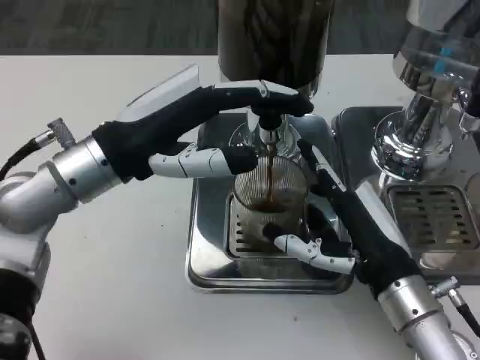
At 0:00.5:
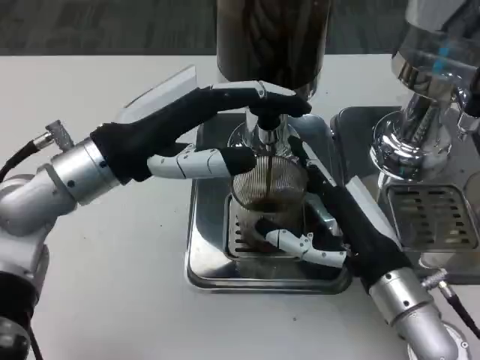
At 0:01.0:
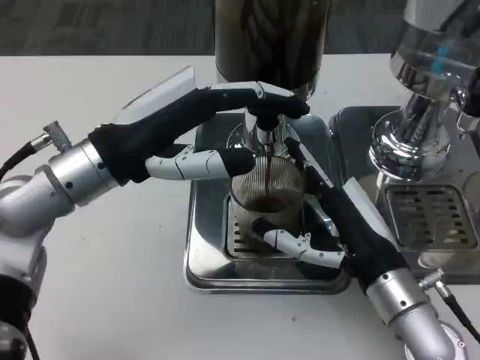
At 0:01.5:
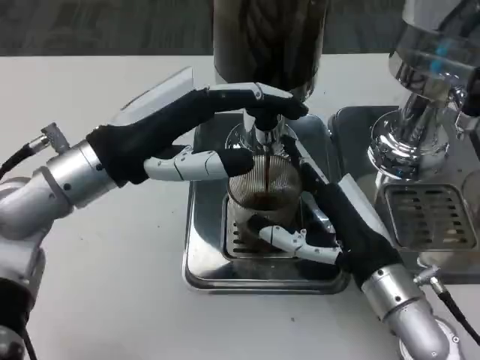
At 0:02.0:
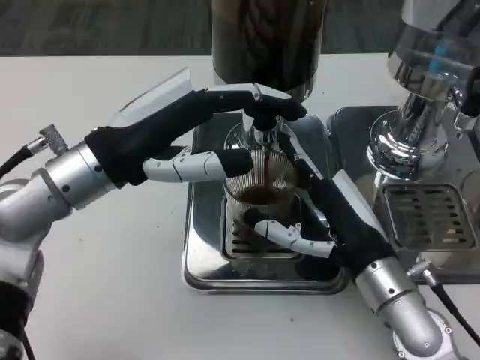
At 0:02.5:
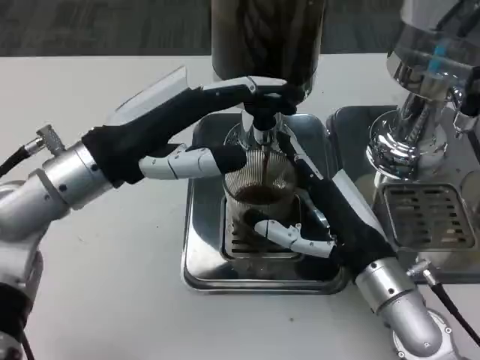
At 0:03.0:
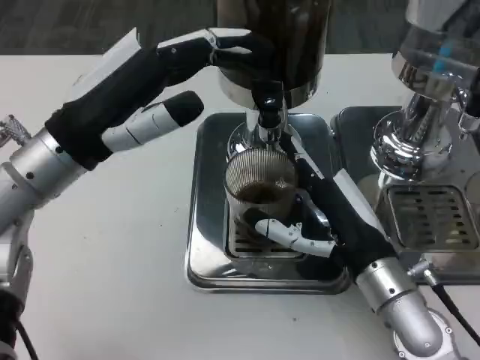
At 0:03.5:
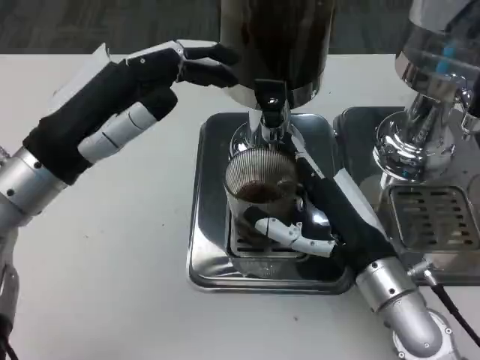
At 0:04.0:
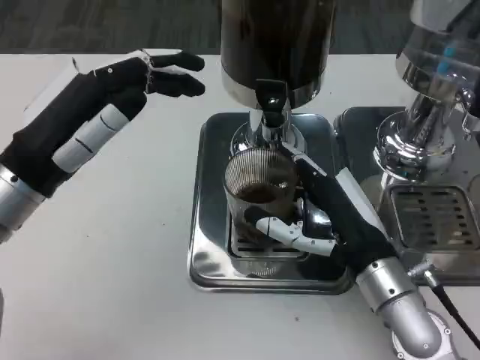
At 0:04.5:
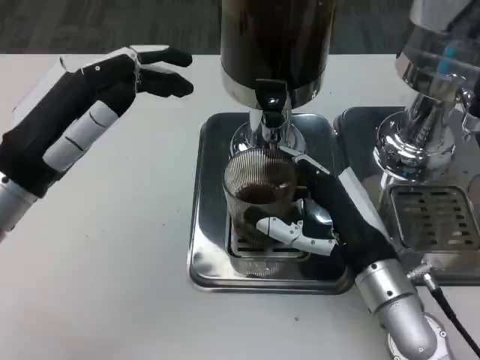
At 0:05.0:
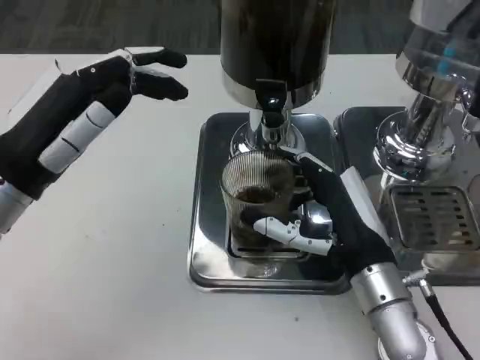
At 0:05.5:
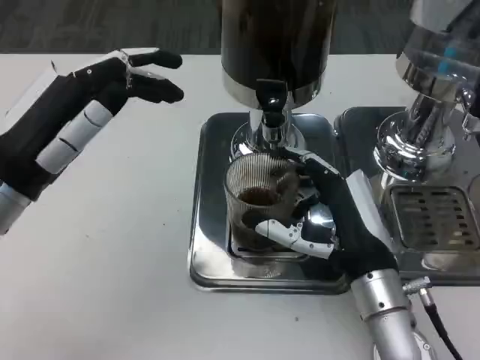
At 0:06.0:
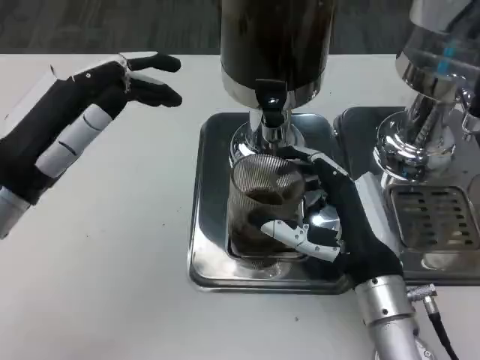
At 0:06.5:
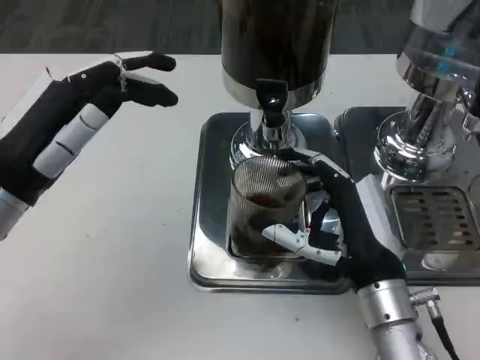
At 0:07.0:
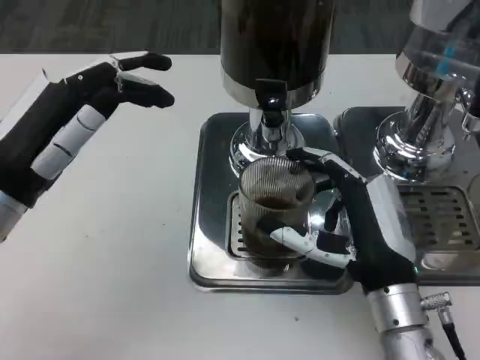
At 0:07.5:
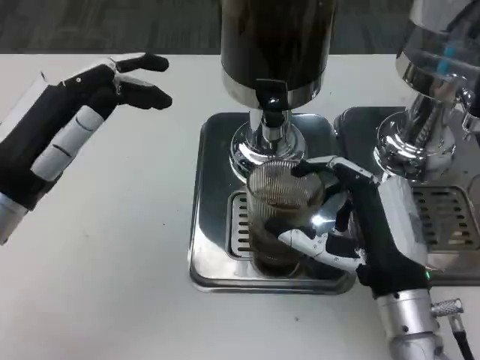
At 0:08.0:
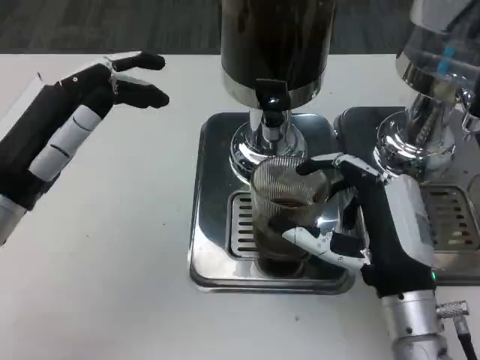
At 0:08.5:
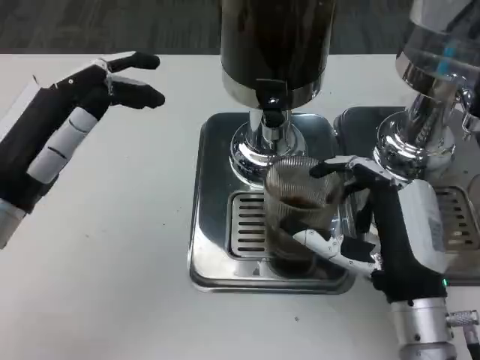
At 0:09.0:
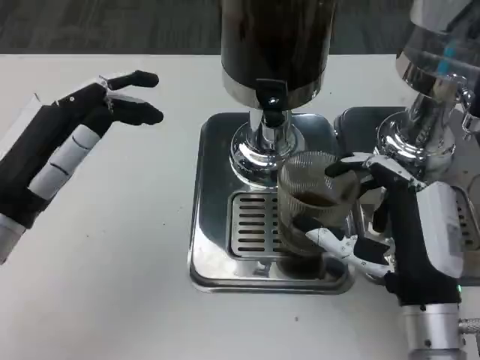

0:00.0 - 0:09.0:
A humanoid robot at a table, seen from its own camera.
Task of the whole recording: Grasp the cup under the faucet to collect the drink, then remove the cup.
0:02.0 - 0:04.5: The left hand is displaced to the left by roughly 5 cm.
0:04.5 - 0:07.0: The hands make only small movements.

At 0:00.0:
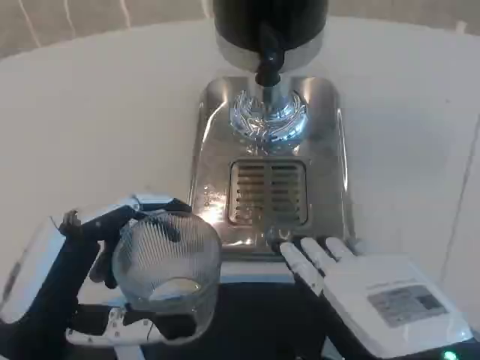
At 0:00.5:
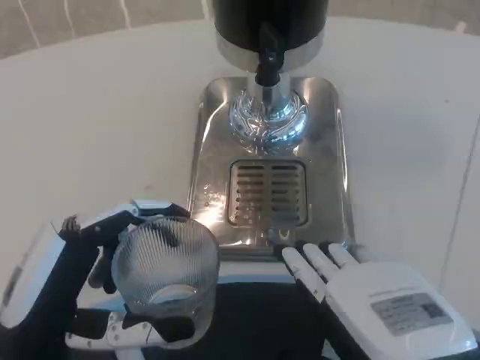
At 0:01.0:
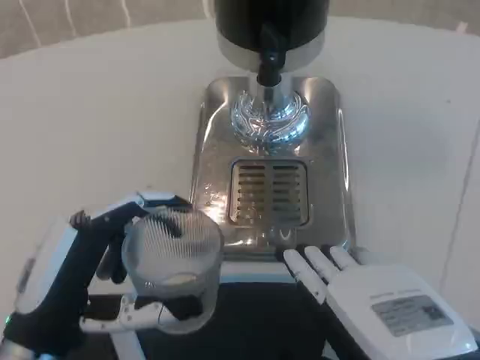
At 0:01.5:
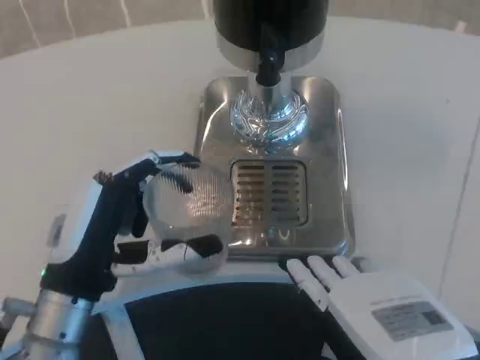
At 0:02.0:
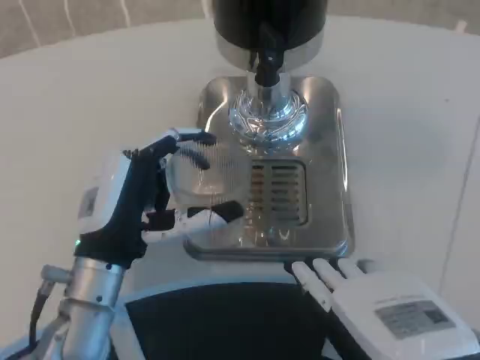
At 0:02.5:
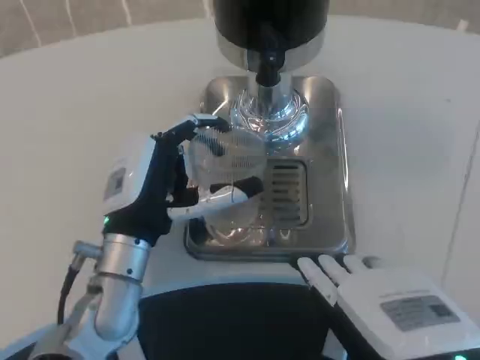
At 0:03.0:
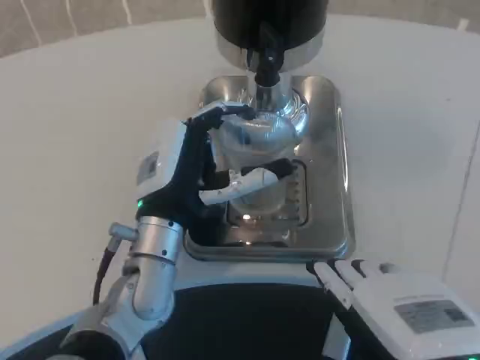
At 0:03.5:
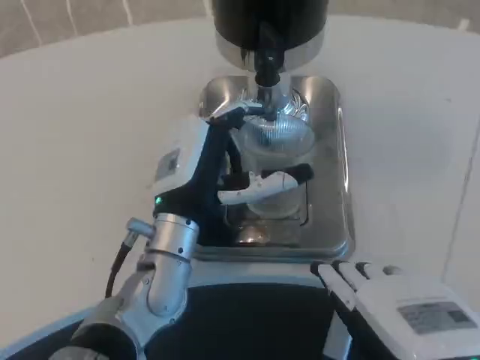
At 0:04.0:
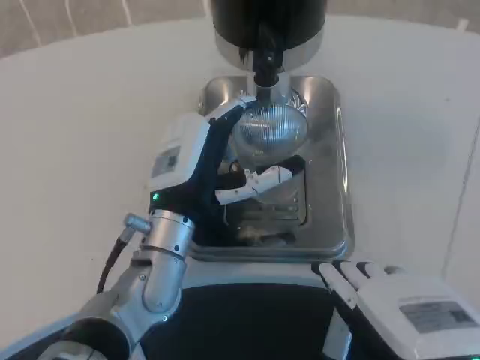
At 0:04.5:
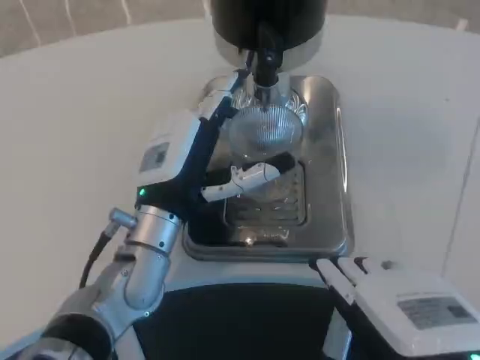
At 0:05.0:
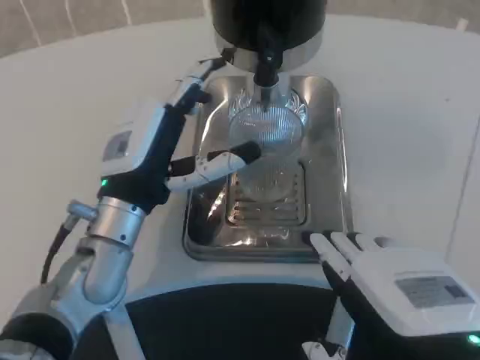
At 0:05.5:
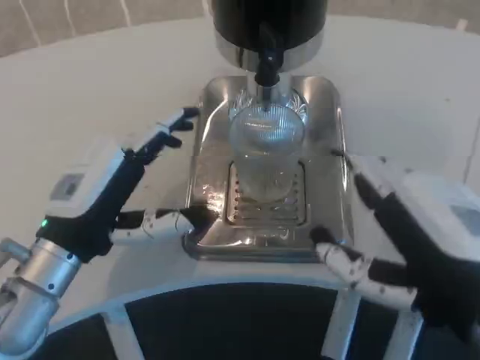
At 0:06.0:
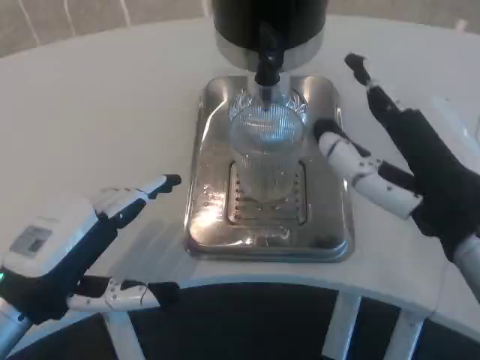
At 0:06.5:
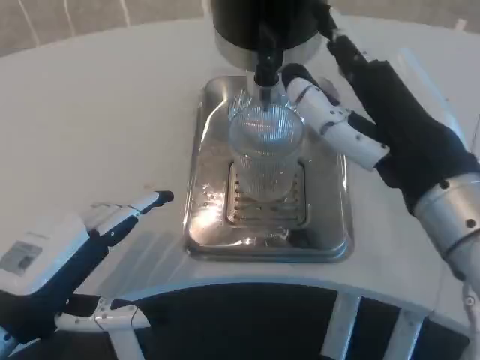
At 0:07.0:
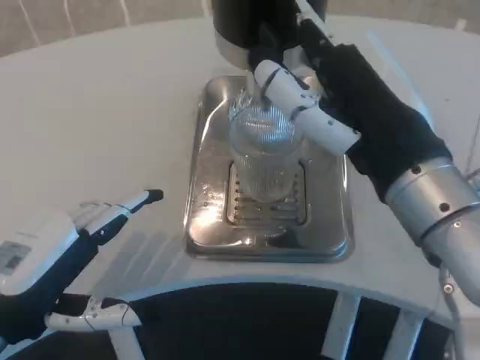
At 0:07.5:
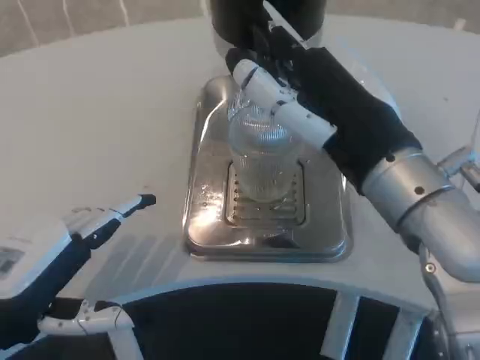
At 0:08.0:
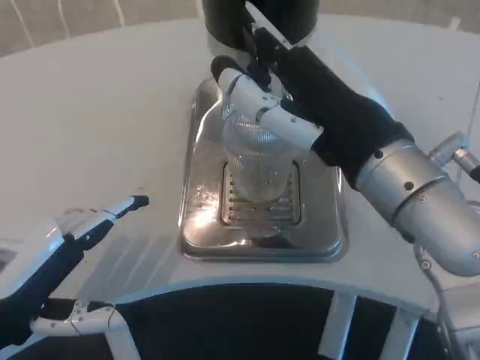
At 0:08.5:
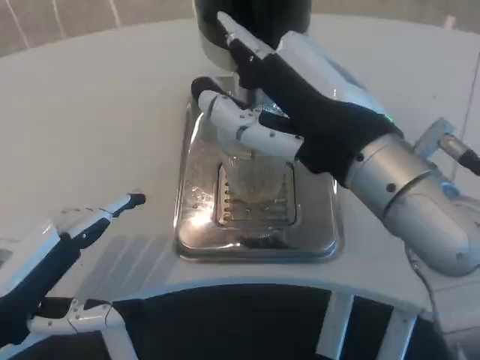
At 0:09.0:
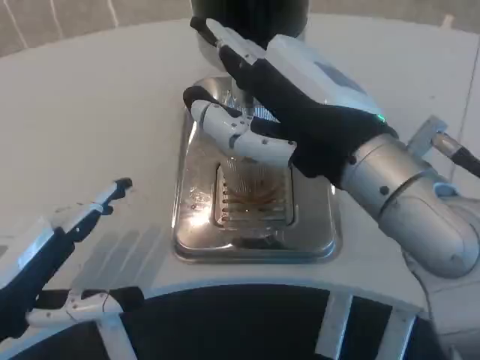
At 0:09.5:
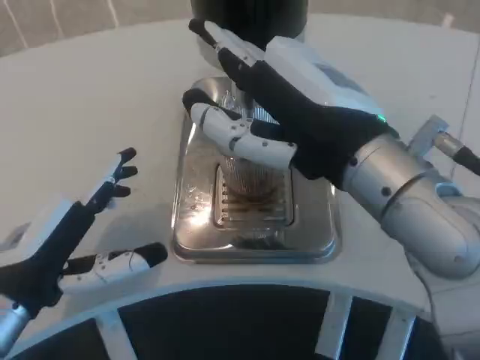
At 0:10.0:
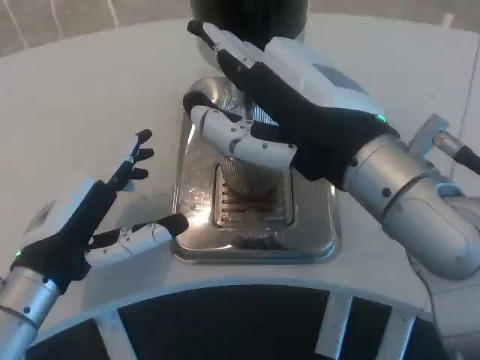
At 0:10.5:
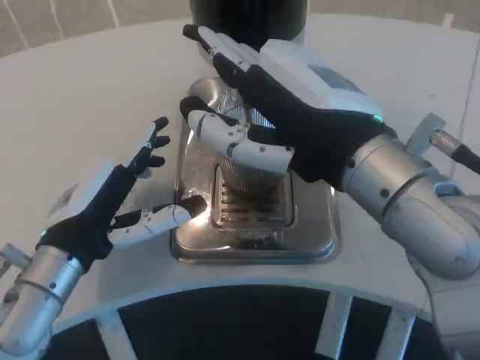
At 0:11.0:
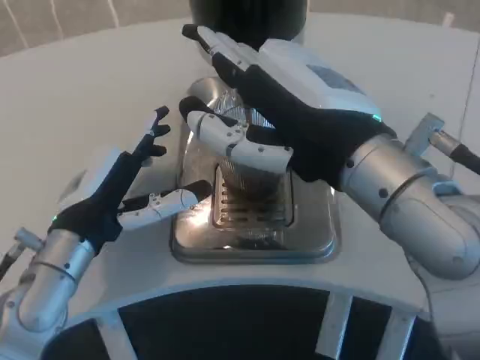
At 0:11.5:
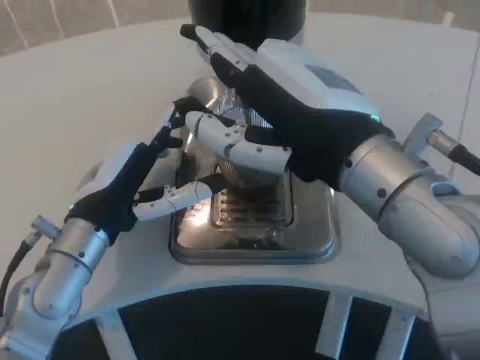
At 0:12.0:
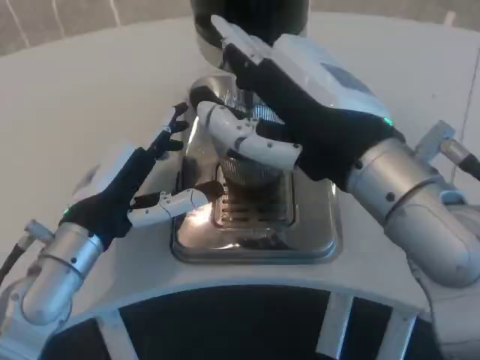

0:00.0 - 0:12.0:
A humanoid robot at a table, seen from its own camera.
Task of the whole recording: Grasp the cup under the faucet to collect the drink, then remove the cup.
0:00.0 - 0:02.0: The left hand goes approximately 10 cm forward and to the right.
0:02.0 - 0:04.0: The left hand is displaced to the right by some 5 cm.
0:04.0 - 0:06.0: The right hand shifts some 5 cm forward; the left hand goes some 20 cm to the left and backward.
0:06.0 - 0:08.0: The right hand moves approximately 5 cm.
0:08.0 - 0:10.0: The left hand moves to the right, about 5 cm.
0:10.0 - 0:12.0: The left hand goes some 5 cm forward.

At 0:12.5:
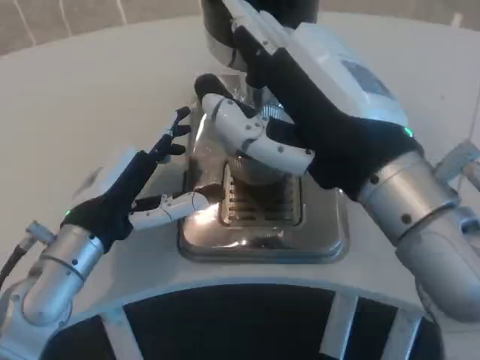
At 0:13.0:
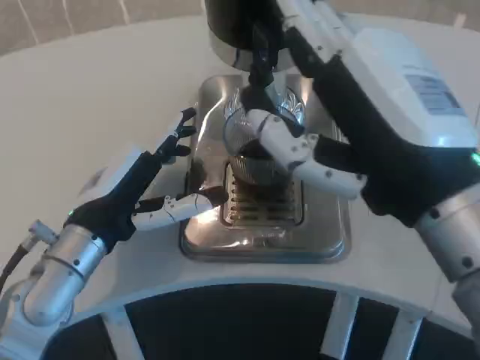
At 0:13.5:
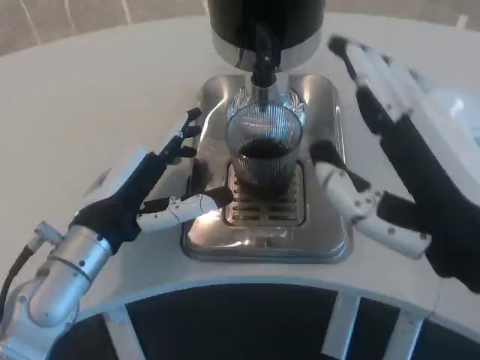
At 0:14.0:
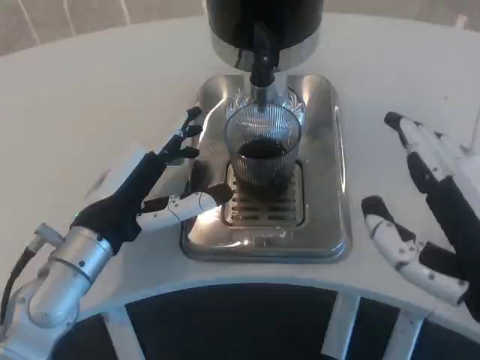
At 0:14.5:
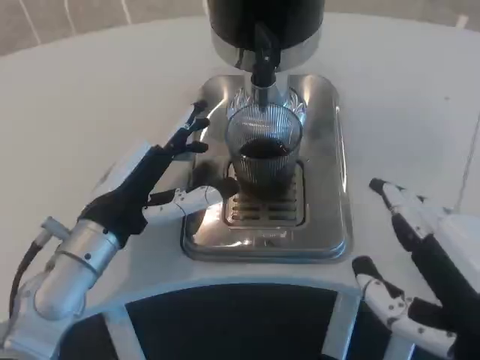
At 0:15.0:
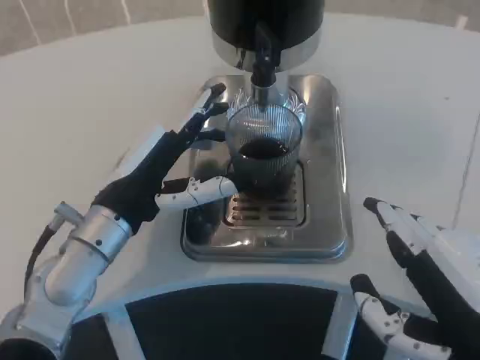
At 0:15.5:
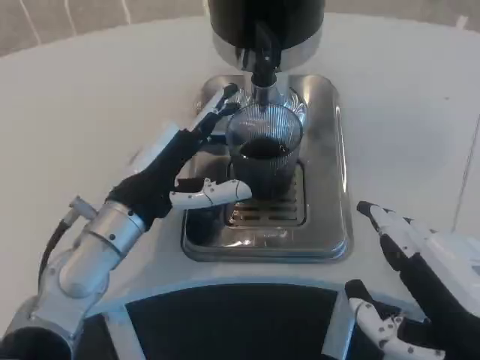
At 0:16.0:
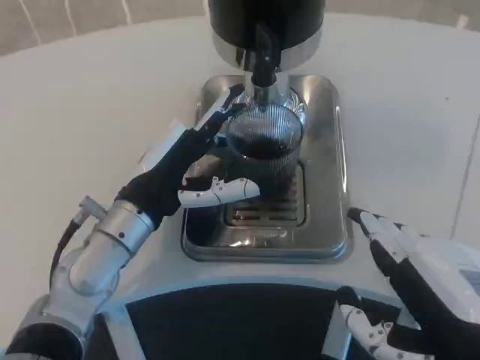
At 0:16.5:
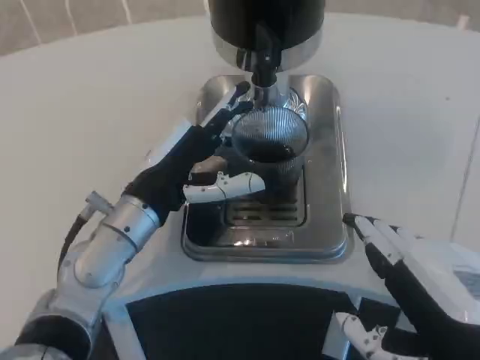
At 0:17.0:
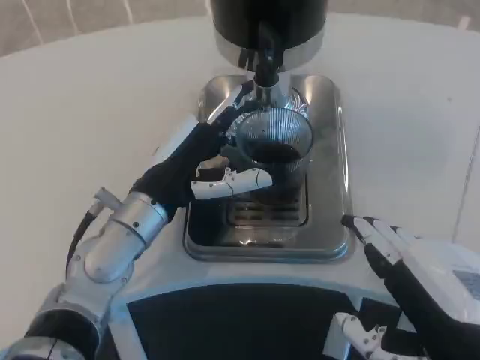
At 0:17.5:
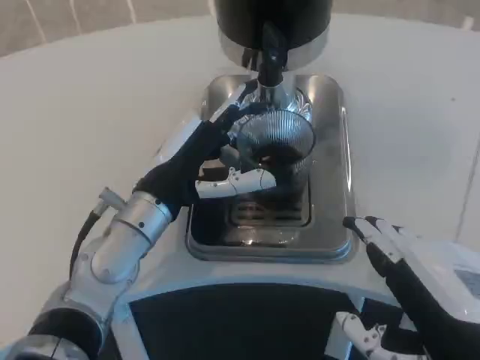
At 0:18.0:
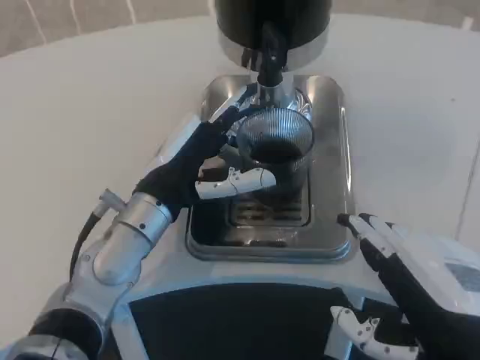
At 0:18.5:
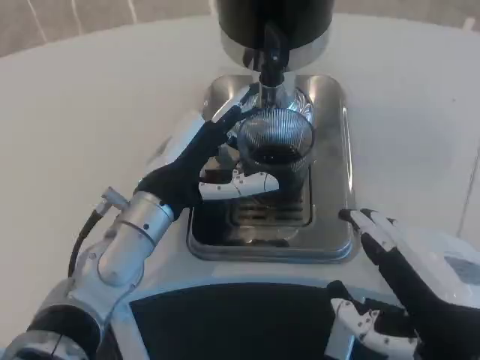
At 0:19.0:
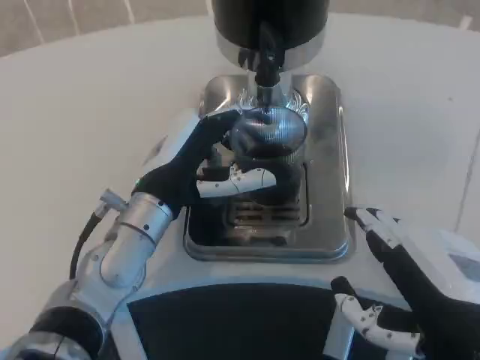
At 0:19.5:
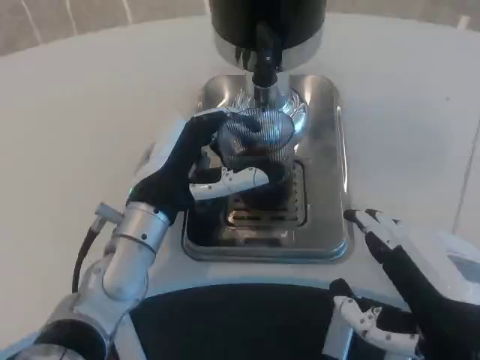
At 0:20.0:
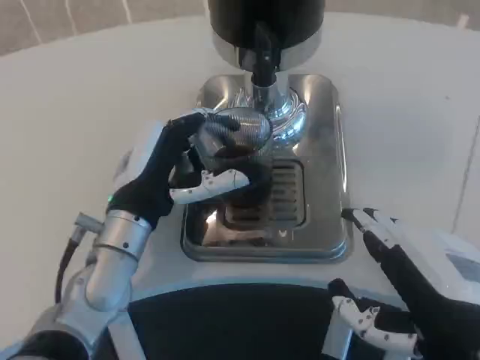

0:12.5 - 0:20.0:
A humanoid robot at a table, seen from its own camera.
Task of the whole recording: Grasp the cup under the faucet to collect the drink, then remove the cup.
0:12.5 - 0:14.5: The right hand shifts approximately 15 cm backward, to the right and downward.
0:16.5 - 0:18.0: The two hands keep their place.
